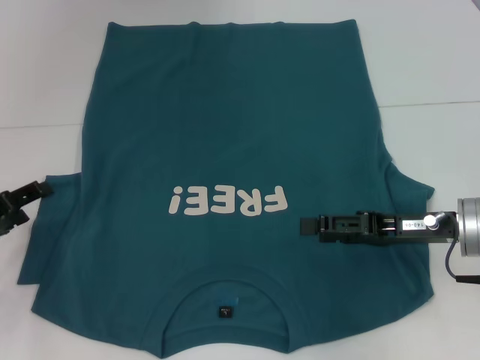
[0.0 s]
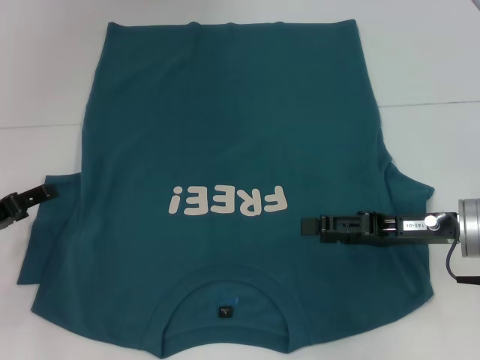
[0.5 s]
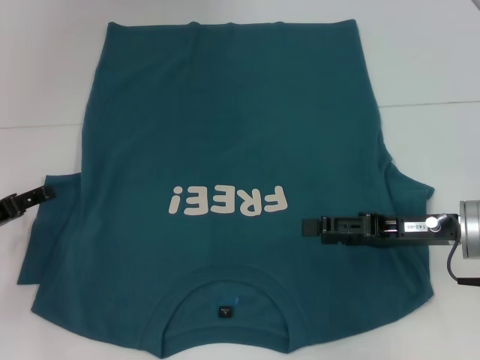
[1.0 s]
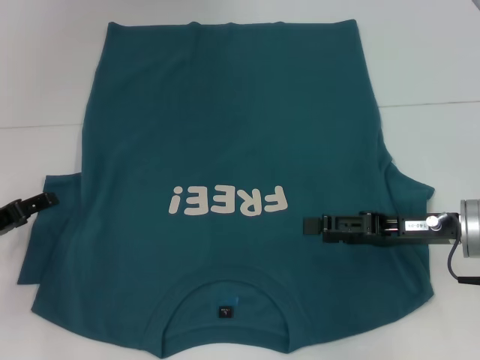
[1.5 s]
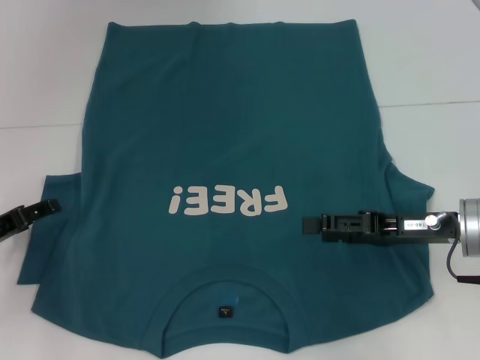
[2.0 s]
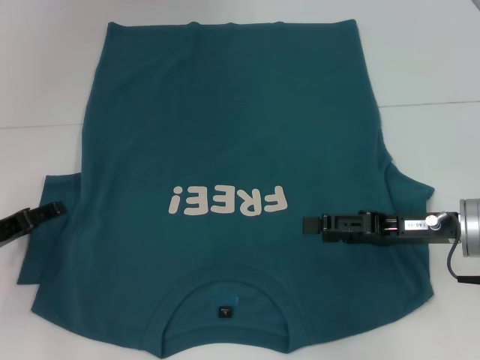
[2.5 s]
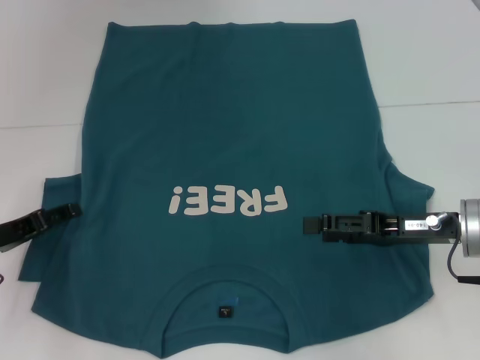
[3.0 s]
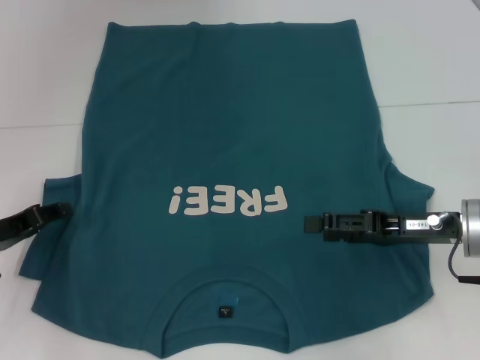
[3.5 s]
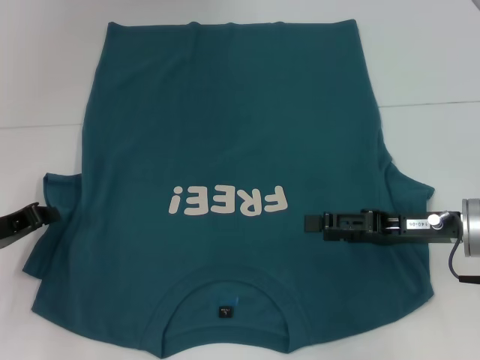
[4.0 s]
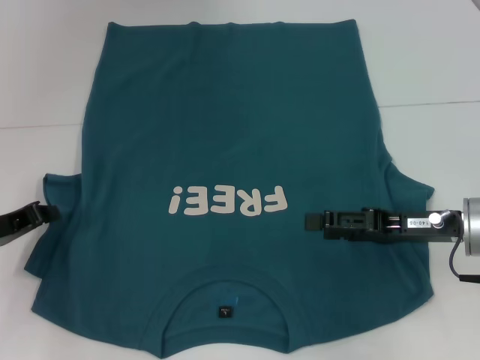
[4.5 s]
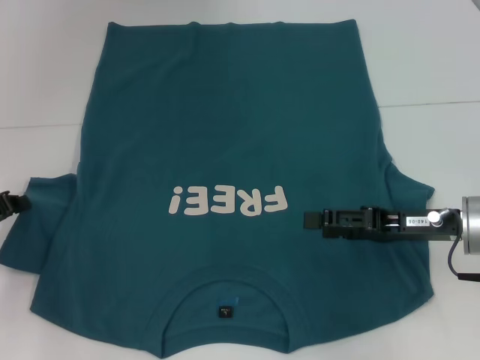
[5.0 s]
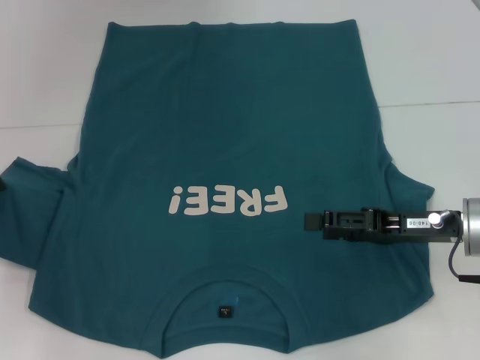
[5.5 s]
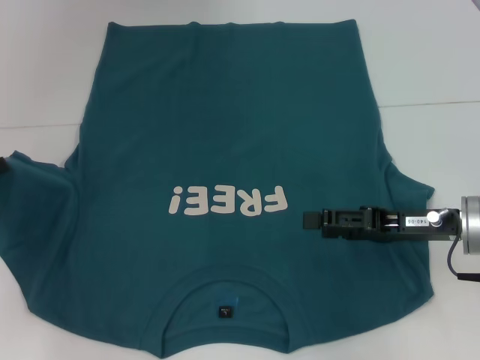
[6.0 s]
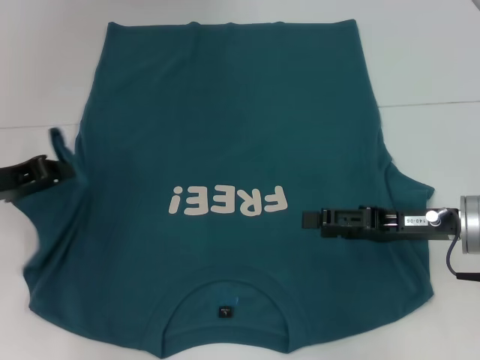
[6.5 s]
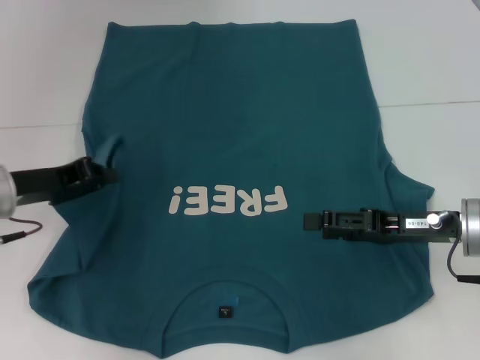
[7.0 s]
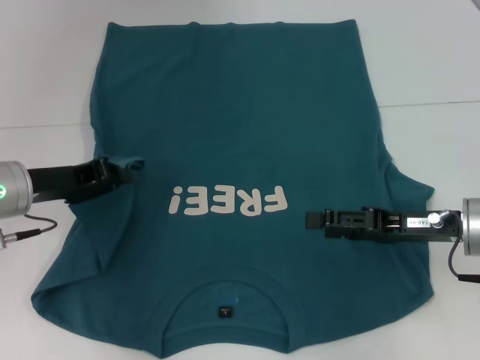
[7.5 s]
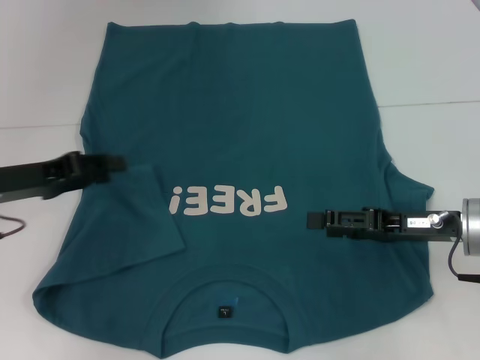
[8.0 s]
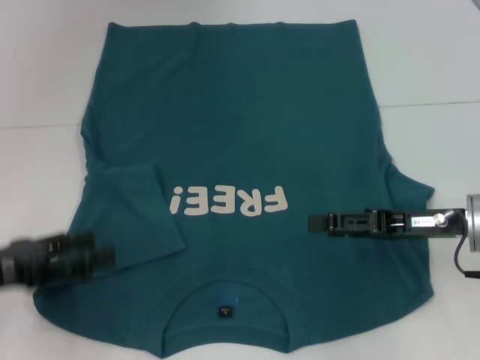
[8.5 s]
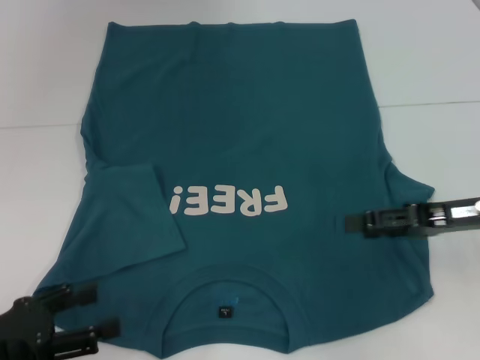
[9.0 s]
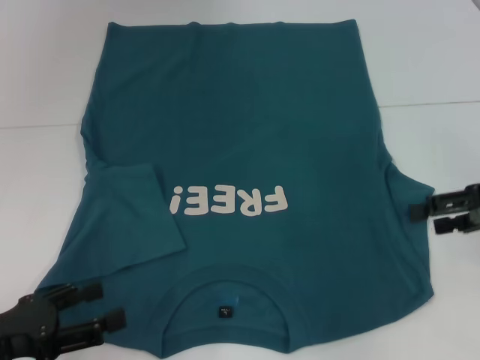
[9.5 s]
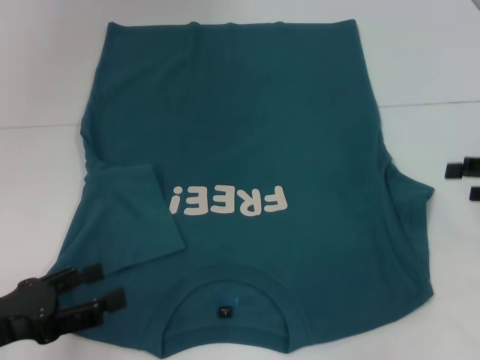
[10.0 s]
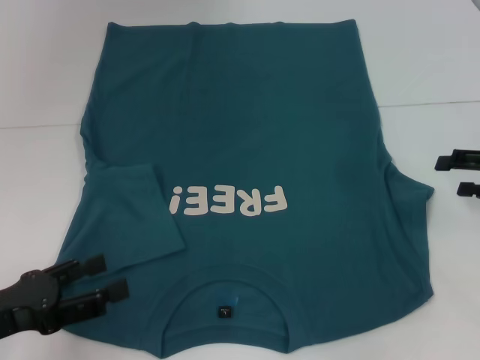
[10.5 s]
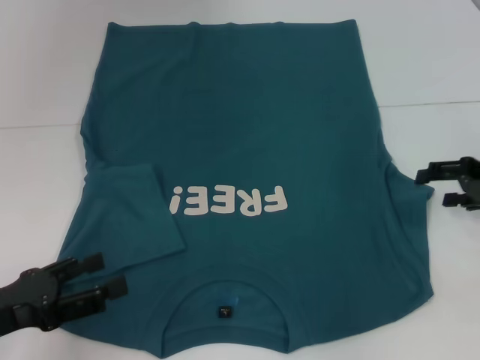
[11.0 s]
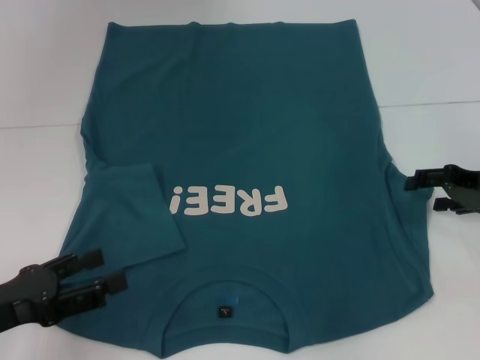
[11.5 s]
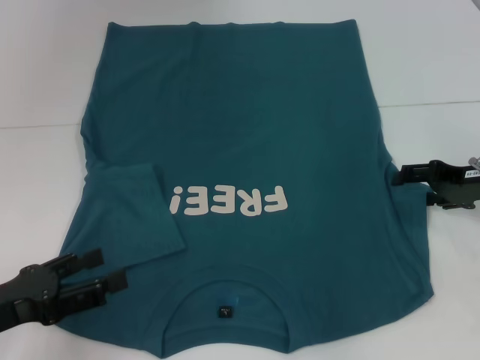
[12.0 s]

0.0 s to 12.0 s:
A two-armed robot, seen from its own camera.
Step, 0.0 to 7.5 s: Fold the bottom left sleeve with your left hand.
0.0 to 2.0 s: The grippers make only small movements.
2.0 to 4.0 s: The left gripper closes its fingers.
4.0 to 6.0 s: The left gripper travels upward by some 5 cm.
6.0 to 8.0 s: The left gripper goes approximately 10 cm to the right.
8.0 to 10.0 s: The left gripper moves backward, some 15 cm, and opens; the right gripper moves to the right and upward, approximately 15 cm.
10.0 to 12.0 s: The right gripper shifts some 10 cm forward and to the left.

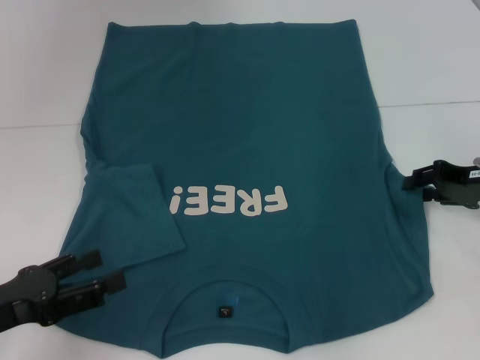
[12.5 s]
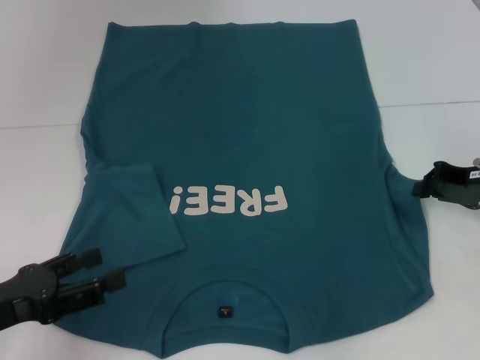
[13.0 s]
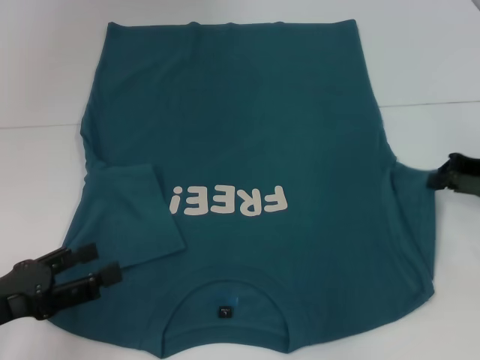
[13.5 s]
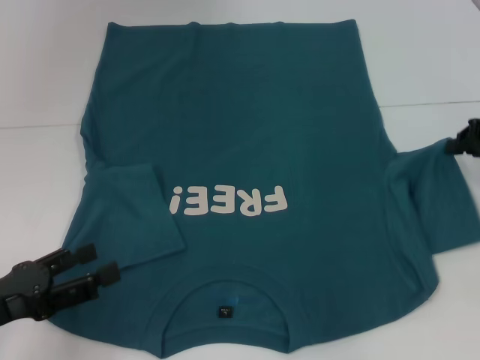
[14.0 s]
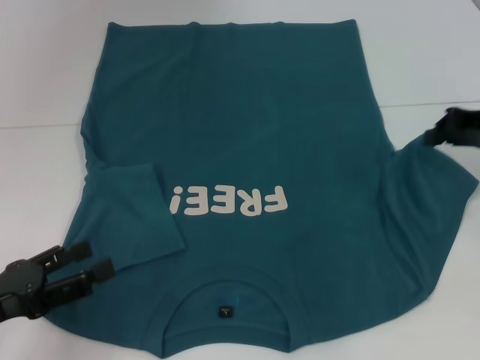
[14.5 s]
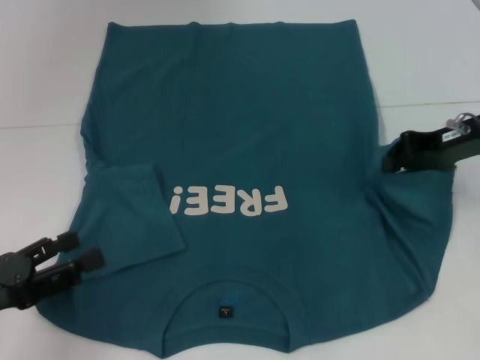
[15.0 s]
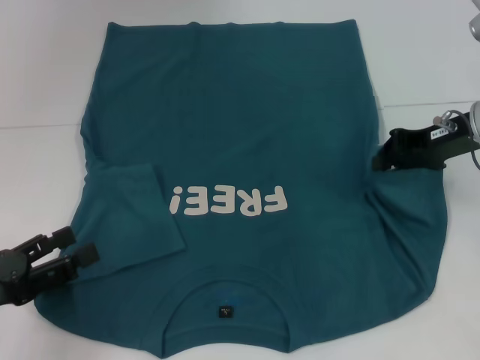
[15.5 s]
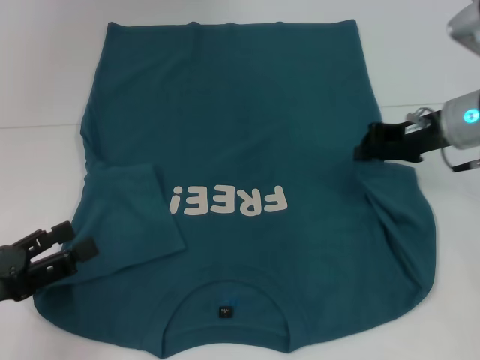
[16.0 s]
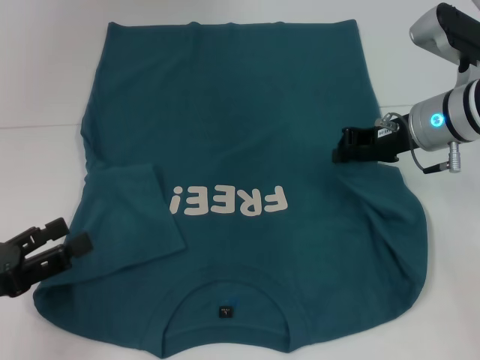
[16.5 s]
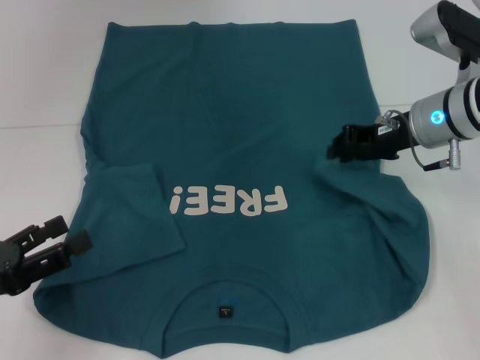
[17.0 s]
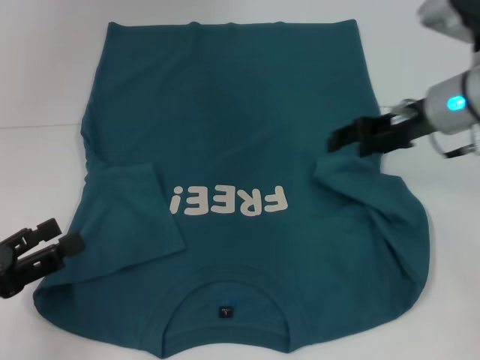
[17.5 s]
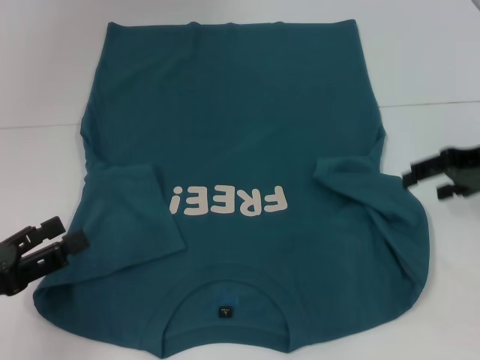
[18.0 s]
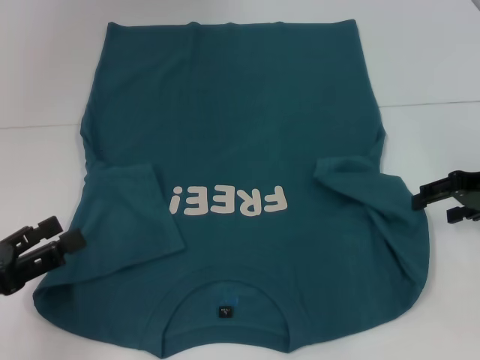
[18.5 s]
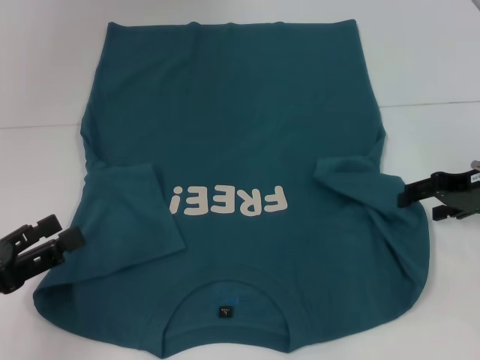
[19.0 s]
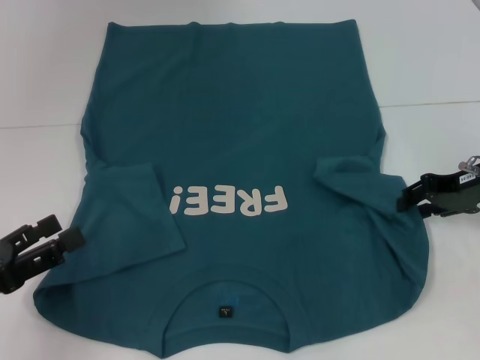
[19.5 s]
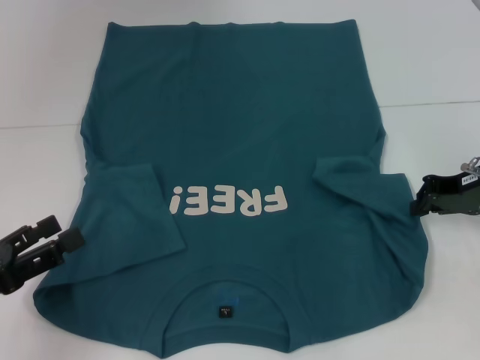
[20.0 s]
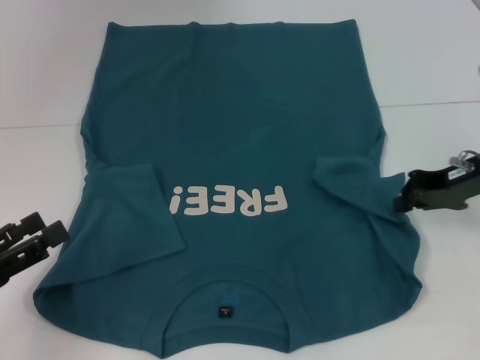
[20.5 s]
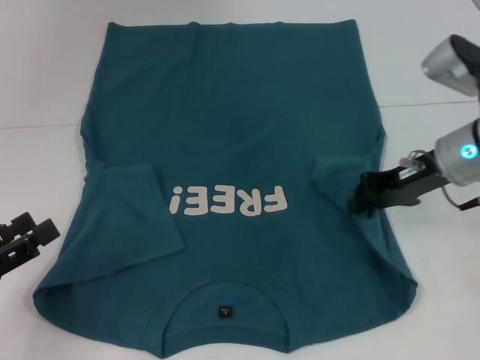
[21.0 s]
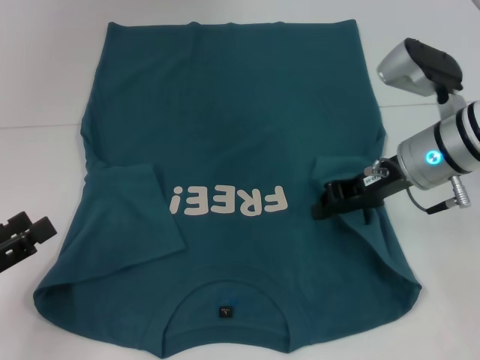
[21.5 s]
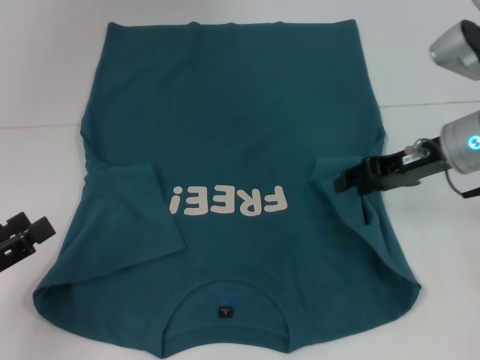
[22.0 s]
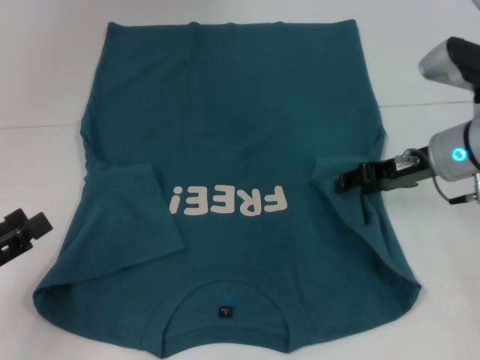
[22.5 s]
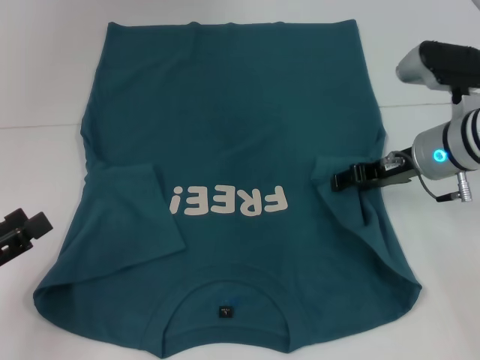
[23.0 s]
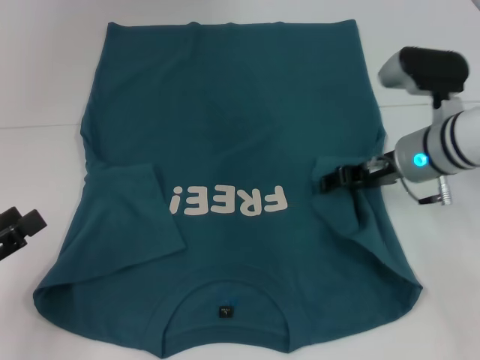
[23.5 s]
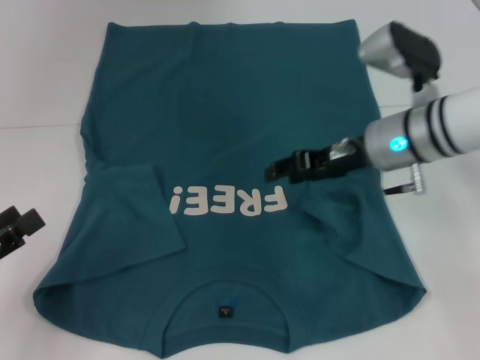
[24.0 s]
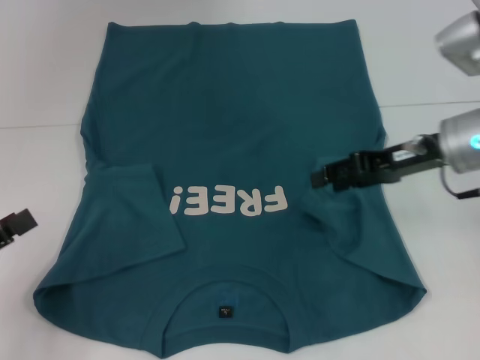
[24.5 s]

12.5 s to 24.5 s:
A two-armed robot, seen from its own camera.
12.5 to 14.5 s: The right gripper travels upward by about 5 cm, and closes up.
14.5 to 16.5 s: The right gripper goes roughly 10 cm to the left.
16.5 to 18.5 s: The right gripper travels to the right and backward by approximately 10 cm, and opens.
18.5 to 20.5 s: The right gripper closes its fingers.
20.5 to 22.5 s: The right gripper heads to the left, covering roughly 5 cm, and opens.

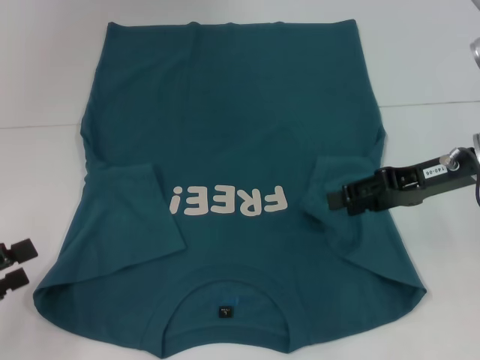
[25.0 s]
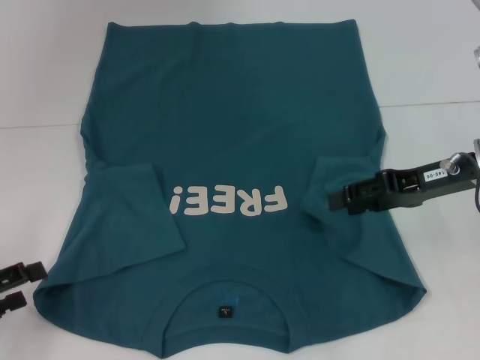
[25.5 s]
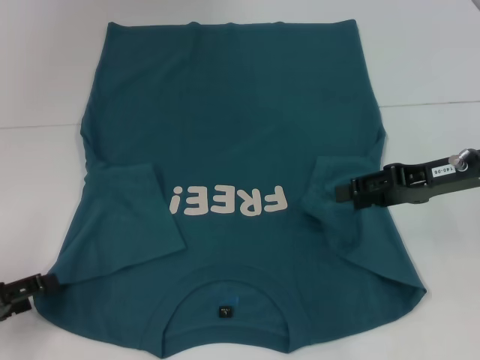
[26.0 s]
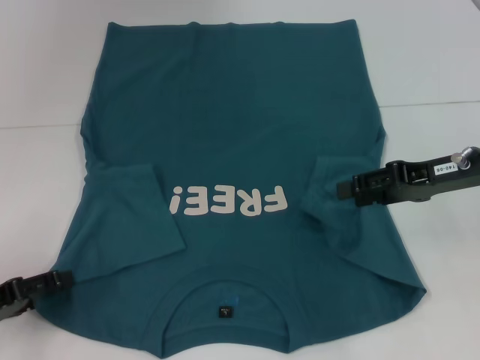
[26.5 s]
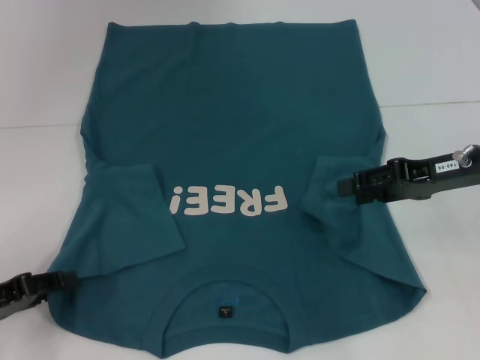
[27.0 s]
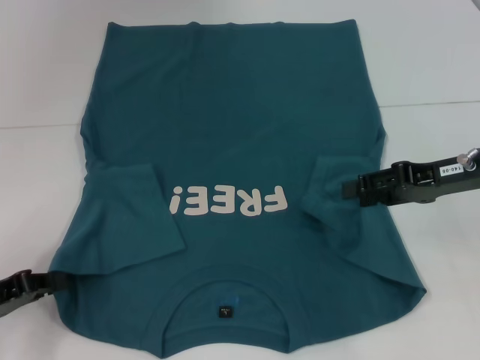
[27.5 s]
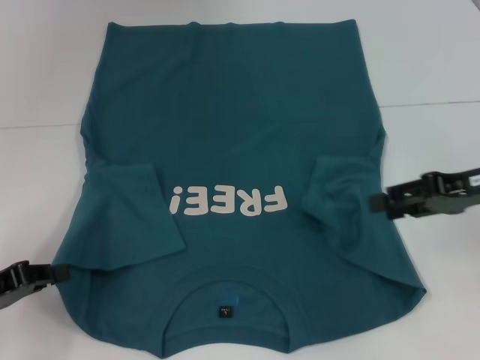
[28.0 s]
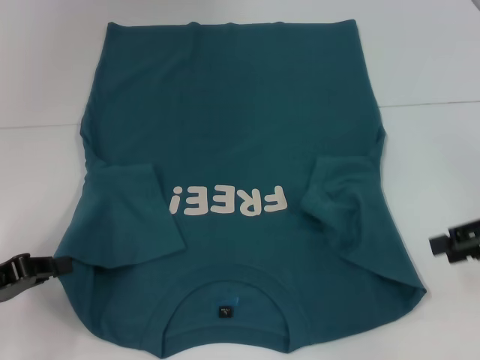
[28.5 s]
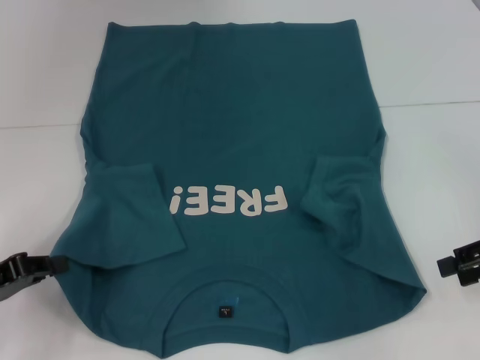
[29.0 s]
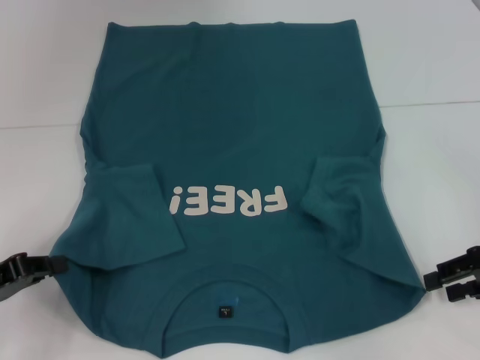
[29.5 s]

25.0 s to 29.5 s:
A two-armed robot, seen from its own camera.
Step, 25.0 to 27.5 s: Grab the bottom left corner with your left hand.
25.0 to 27.0 s: The left gripper ends up about 5 cm from where it was.
27.0 to 29.5 s: The left gripper closes its fingers; the right gripper moves to the right and backward, roughly 10 cm.
